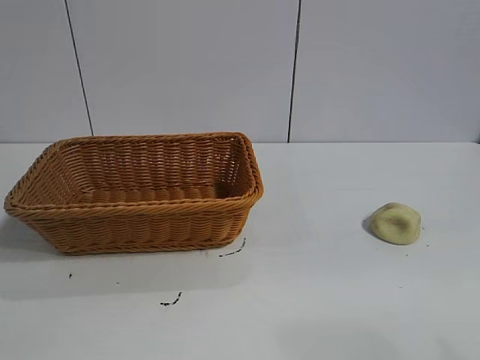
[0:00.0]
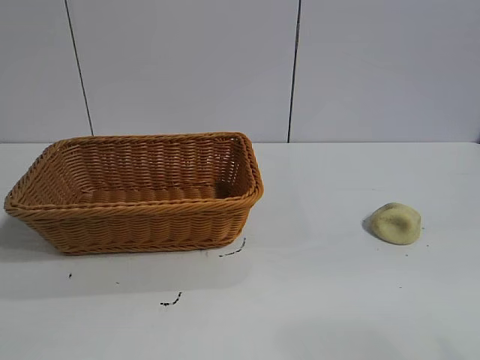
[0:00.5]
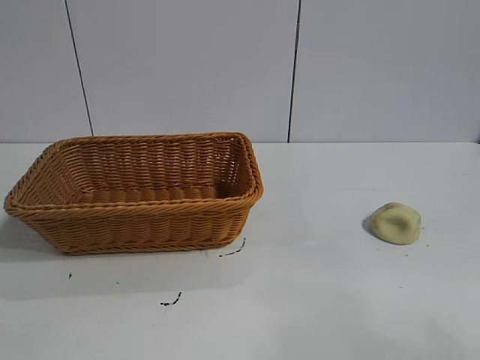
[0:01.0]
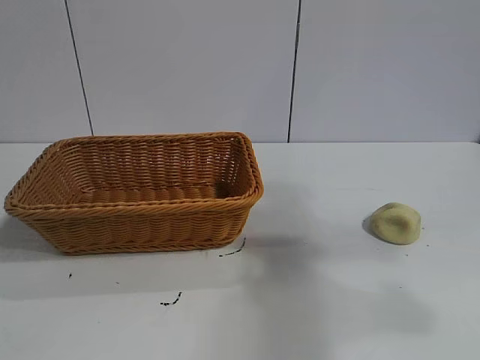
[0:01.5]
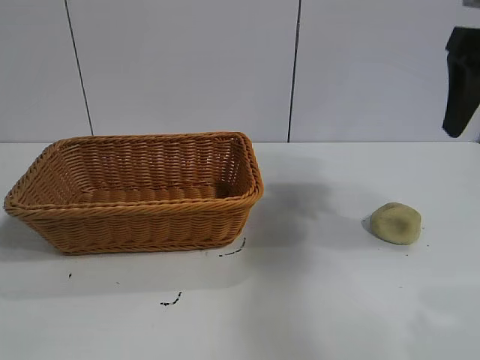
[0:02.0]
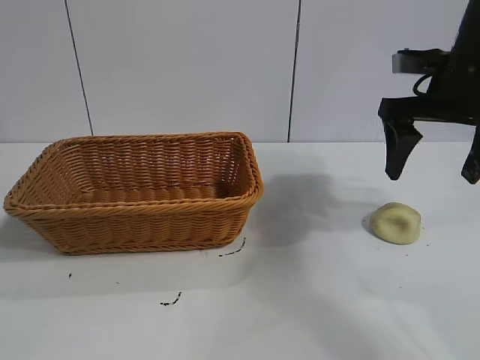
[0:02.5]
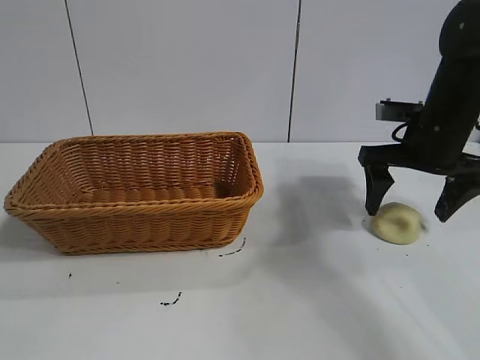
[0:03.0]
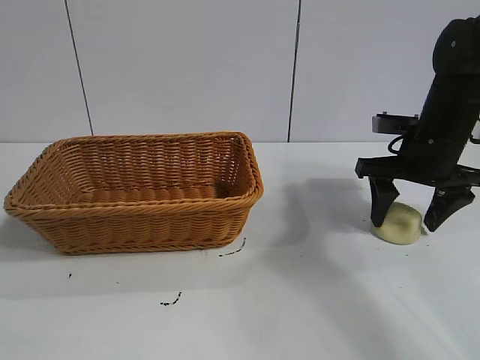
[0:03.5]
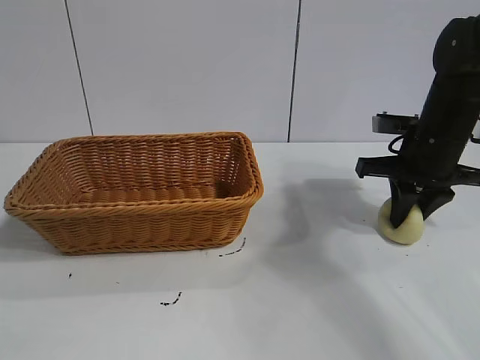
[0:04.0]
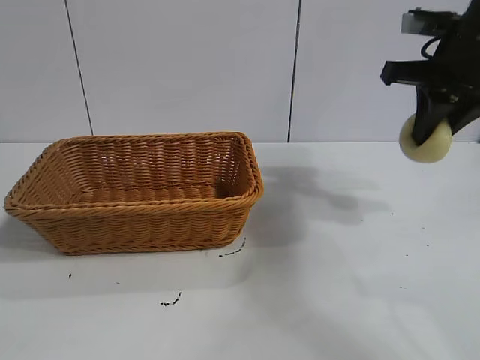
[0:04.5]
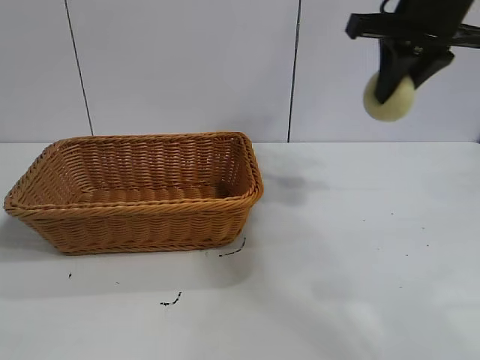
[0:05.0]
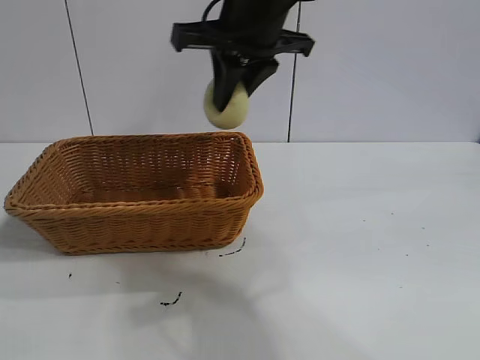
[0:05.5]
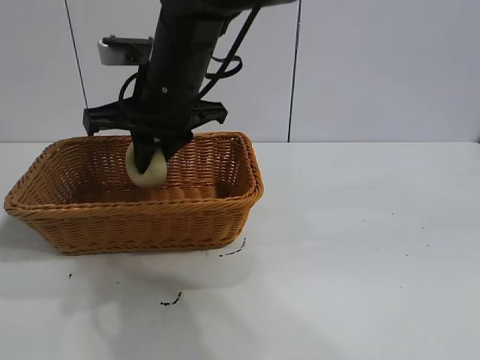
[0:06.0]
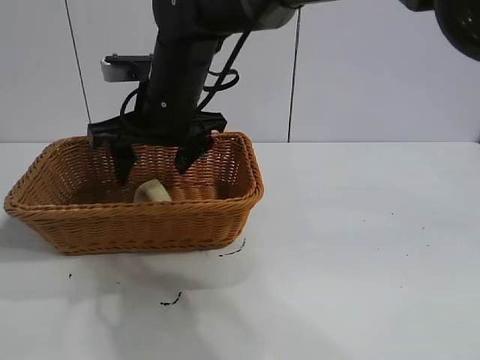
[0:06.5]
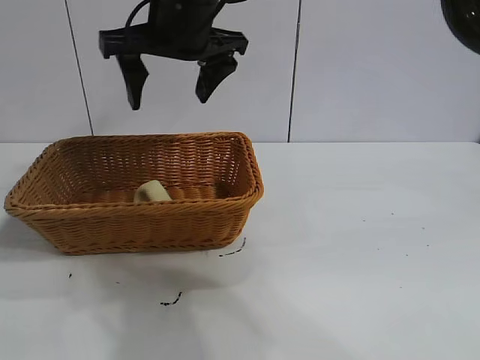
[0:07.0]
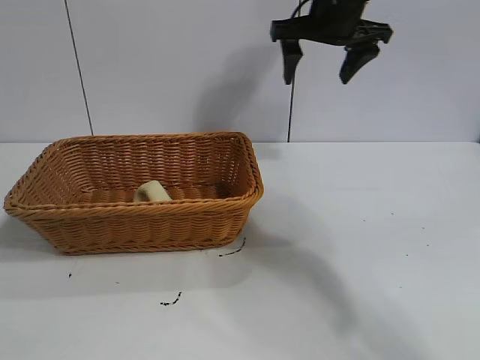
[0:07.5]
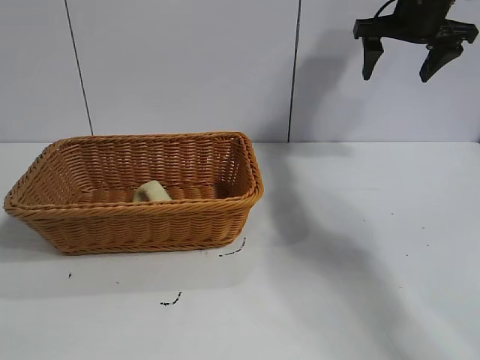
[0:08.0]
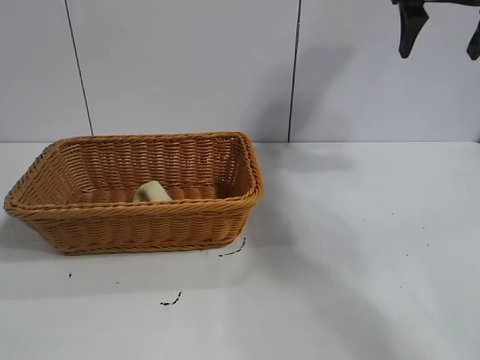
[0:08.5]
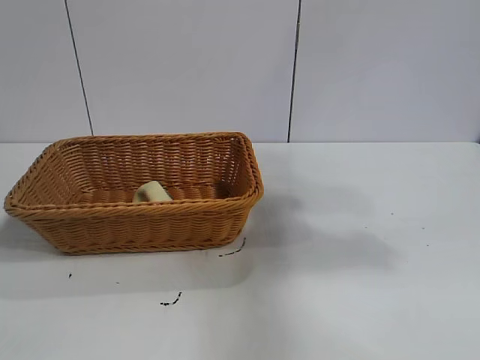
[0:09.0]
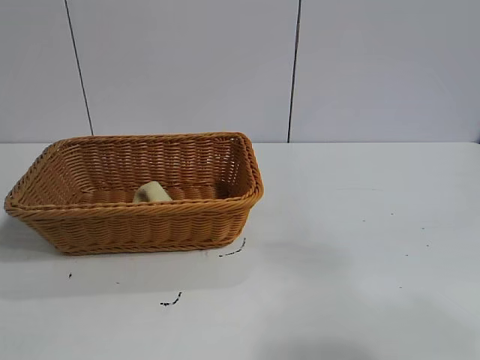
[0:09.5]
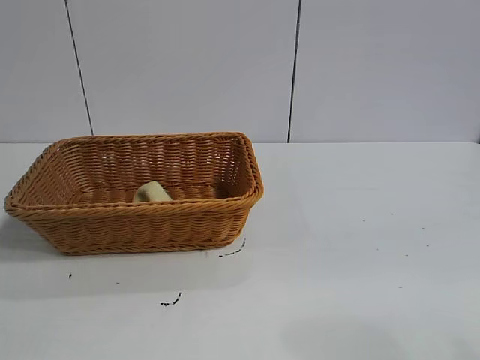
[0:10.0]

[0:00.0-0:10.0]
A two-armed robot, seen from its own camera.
Task of the whole recording: pick up the egg yolk pastry and put it into the basket.
Step, 0:01.0 to 0:03.5: Grasp egg yolk pastry with right gripper.
Step, 0:04.0 to 0:06.0: Place the egg yolk pastry in the basket with right gripper.
